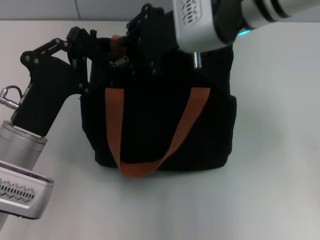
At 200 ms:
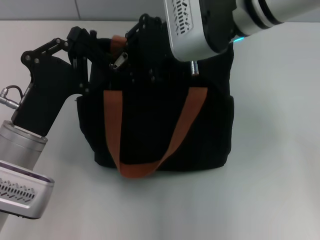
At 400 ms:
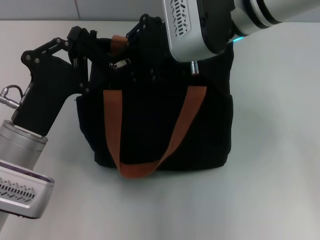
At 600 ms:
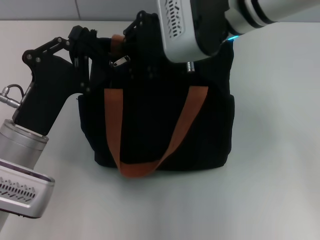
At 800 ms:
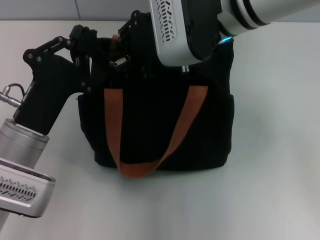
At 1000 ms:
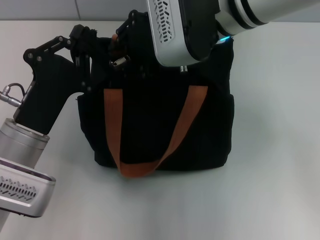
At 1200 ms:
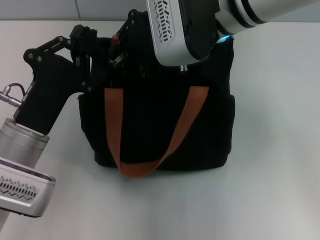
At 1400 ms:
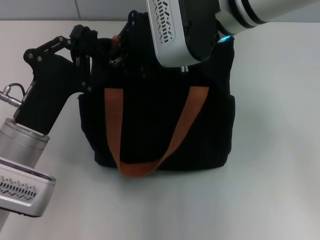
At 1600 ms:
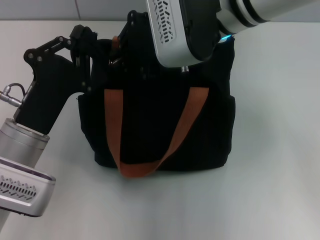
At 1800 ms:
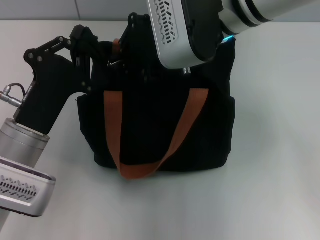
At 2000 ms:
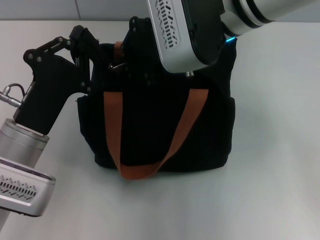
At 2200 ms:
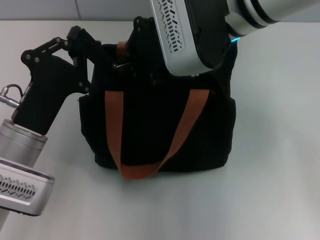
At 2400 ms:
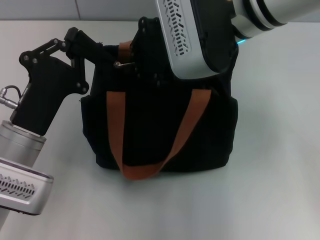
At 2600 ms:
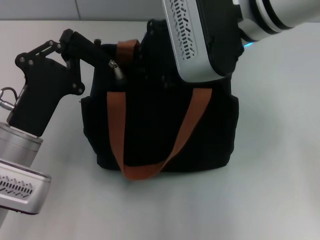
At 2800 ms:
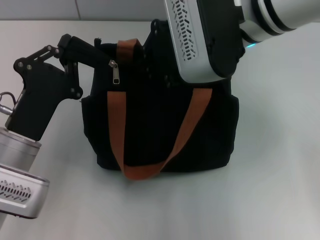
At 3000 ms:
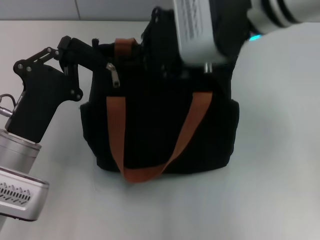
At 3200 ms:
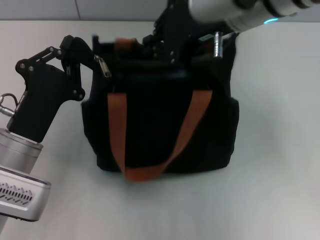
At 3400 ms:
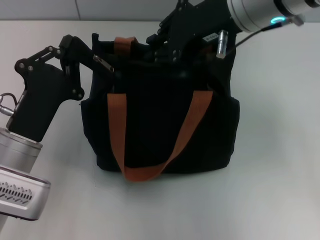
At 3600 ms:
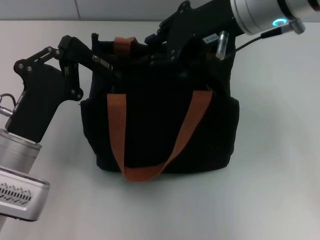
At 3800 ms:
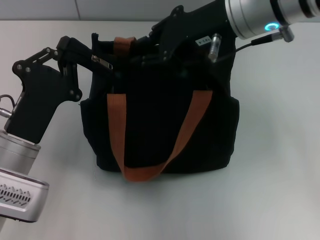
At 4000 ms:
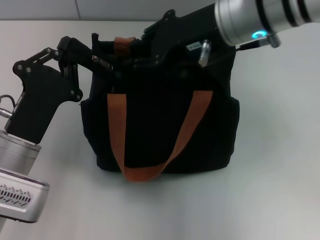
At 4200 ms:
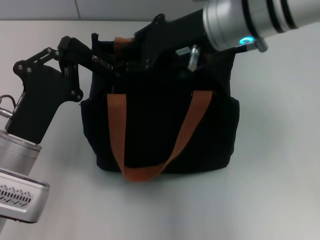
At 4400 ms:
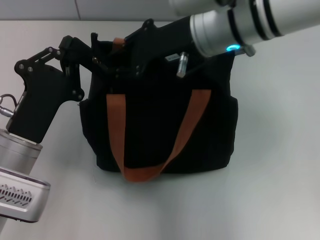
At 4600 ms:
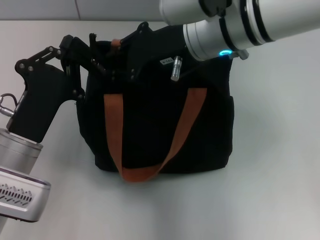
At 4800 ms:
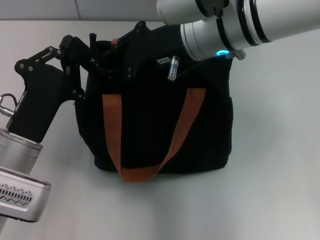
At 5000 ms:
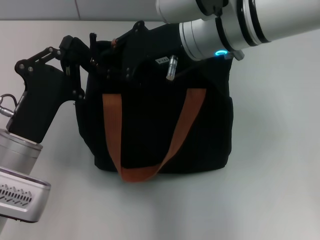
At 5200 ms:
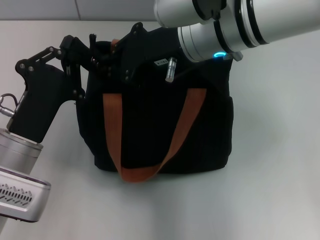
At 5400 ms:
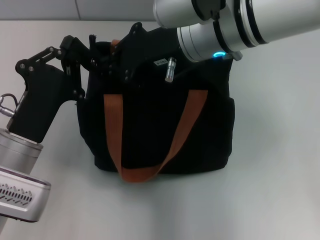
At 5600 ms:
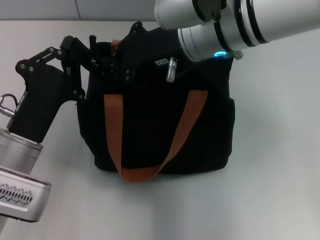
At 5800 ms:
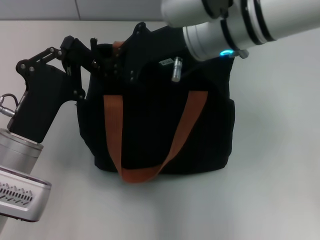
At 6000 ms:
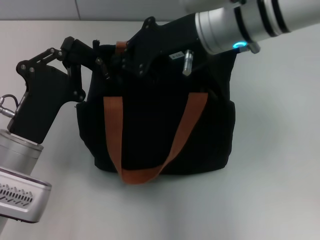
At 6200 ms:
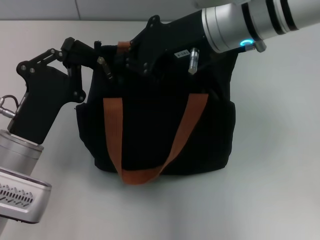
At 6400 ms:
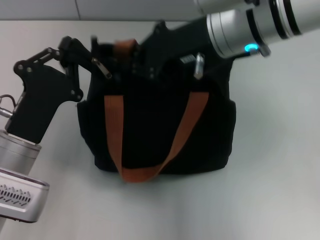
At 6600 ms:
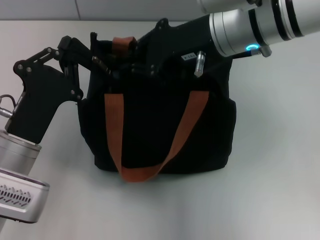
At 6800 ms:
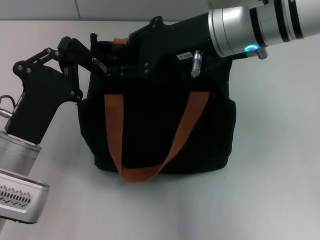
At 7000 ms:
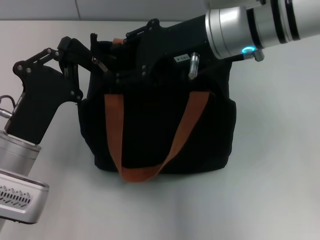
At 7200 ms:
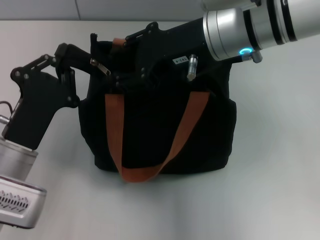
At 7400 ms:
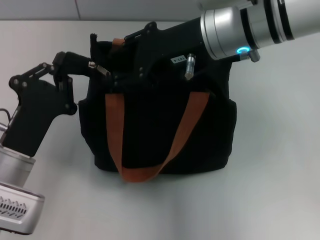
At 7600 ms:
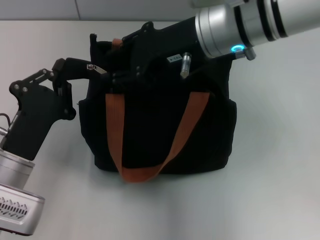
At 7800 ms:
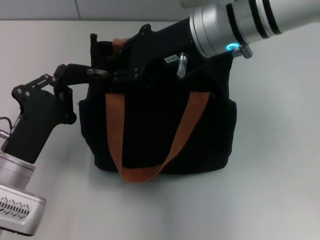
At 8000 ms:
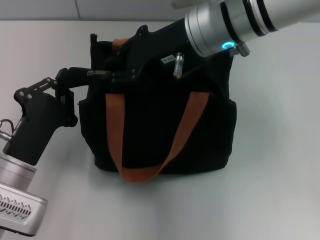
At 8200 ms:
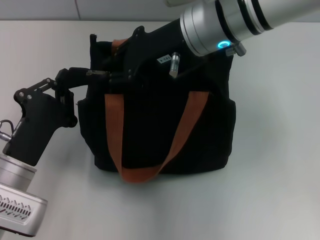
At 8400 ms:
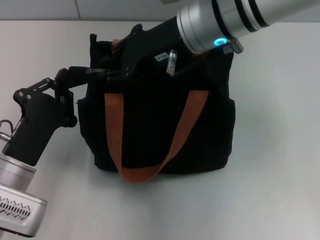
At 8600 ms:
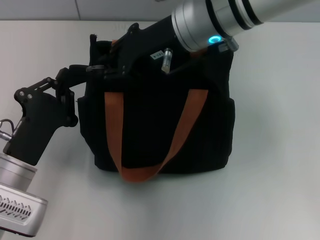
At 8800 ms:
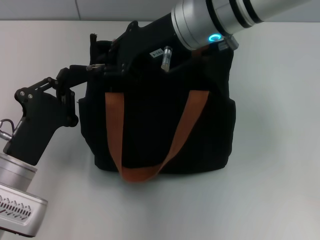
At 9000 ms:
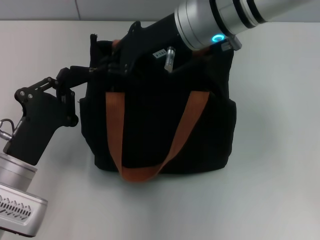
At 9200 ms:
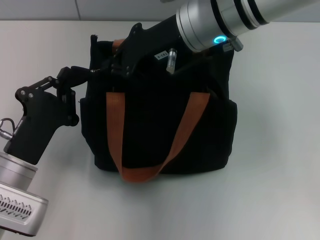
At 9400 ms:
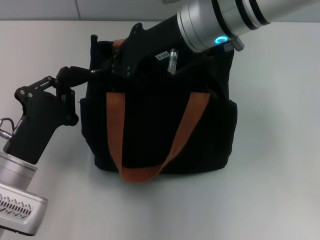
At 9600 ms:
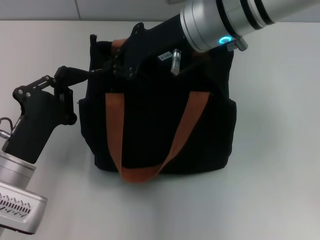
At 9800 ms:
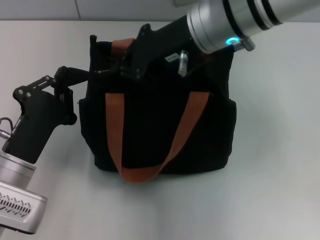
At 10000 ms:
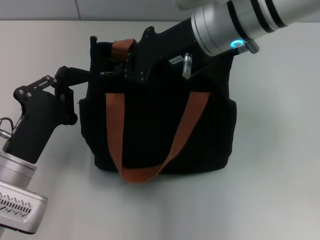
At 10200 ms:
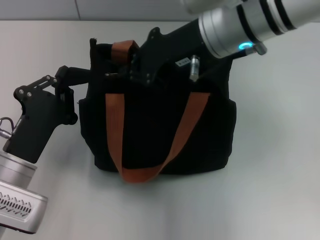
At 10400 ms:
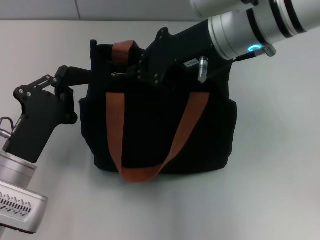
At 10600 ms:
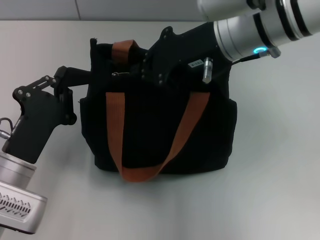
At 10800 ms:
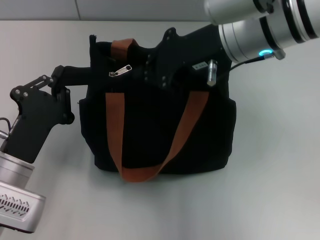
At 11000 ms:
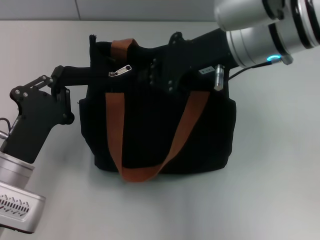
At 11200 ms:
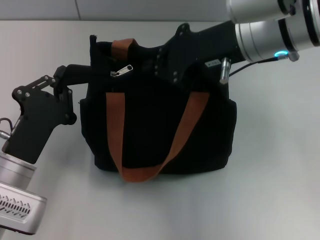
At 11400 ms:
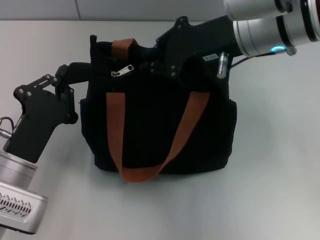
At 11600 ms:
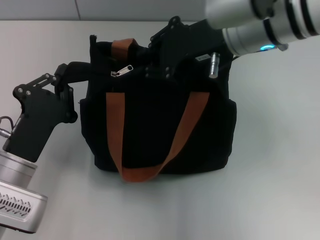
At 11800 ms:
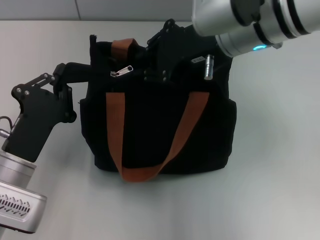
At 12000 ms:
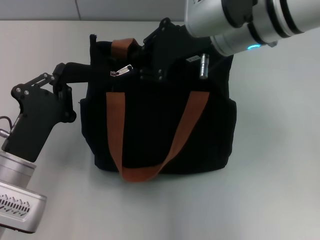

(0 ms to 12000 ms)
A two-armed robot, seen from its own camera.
0 ms - 1600 ms: There are only small adjustments of the grippers.
4400 ms - 6000 ms: Both grippers stay put.
6000 ms - 7600 ms: The right gripper opens up.
7600 ms - 9000 ms: The right gripper closes its fingers.
9000 ms - 10400 ms: The grippers stay close to where they were, moving slightly.
10400 ms - 12000 ms: There are only small adjustments of the grippers.

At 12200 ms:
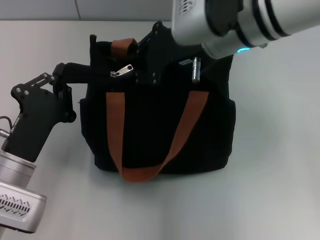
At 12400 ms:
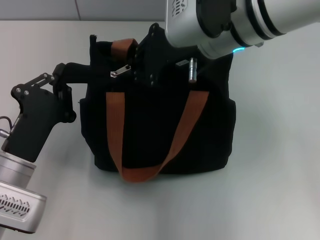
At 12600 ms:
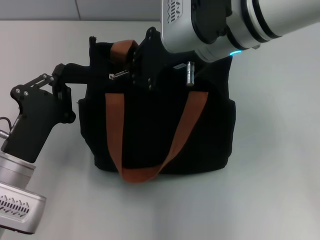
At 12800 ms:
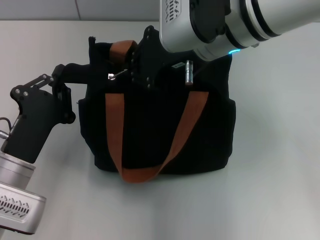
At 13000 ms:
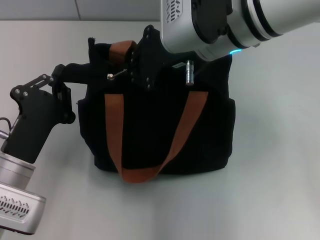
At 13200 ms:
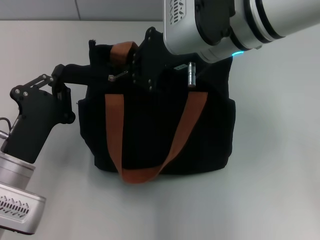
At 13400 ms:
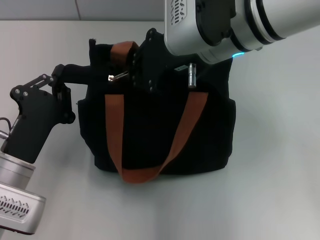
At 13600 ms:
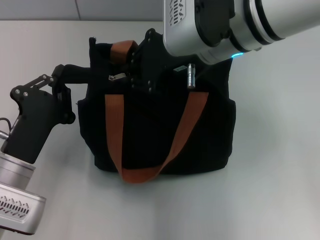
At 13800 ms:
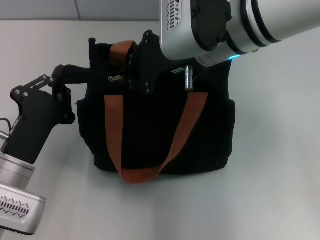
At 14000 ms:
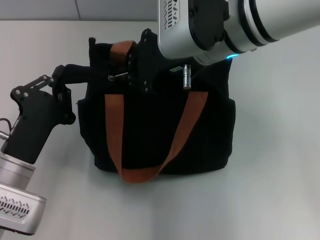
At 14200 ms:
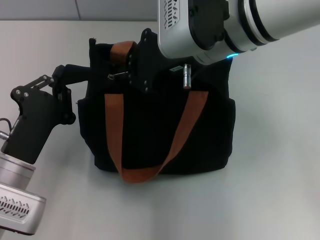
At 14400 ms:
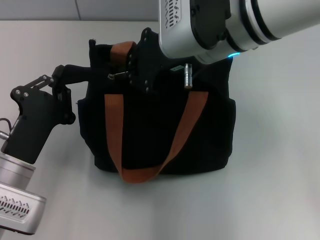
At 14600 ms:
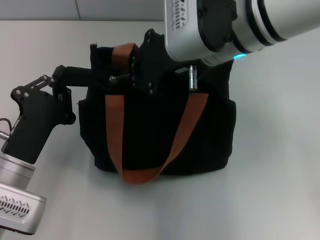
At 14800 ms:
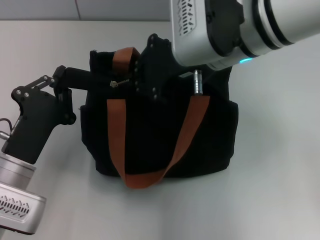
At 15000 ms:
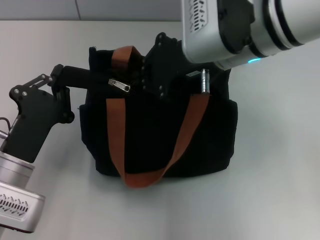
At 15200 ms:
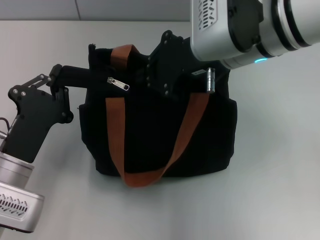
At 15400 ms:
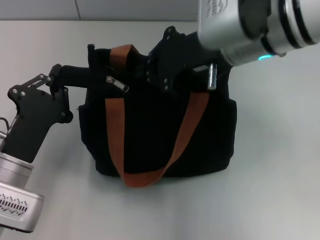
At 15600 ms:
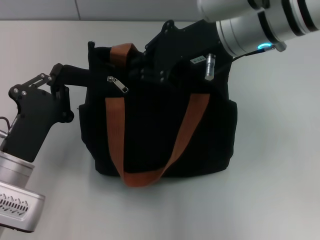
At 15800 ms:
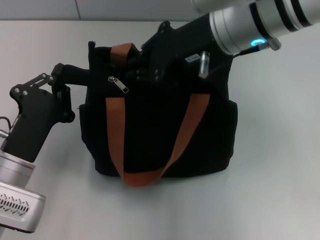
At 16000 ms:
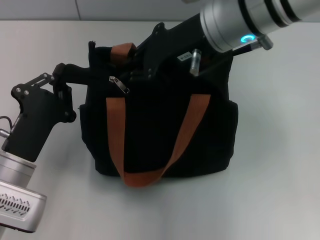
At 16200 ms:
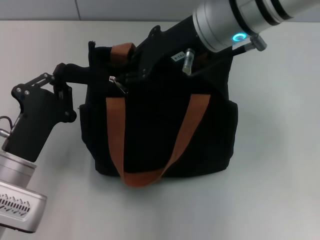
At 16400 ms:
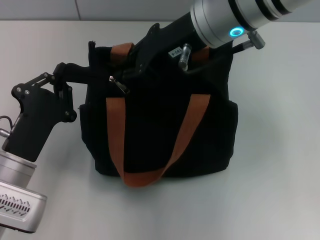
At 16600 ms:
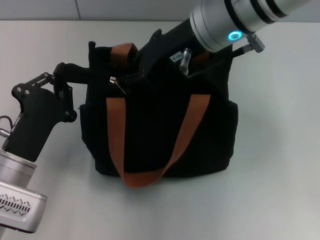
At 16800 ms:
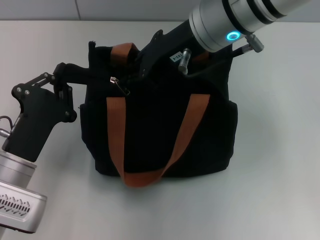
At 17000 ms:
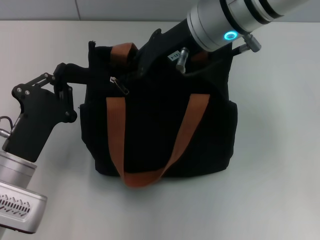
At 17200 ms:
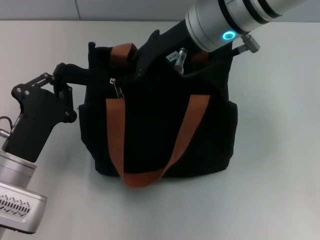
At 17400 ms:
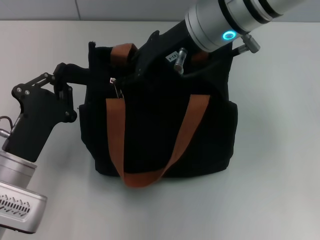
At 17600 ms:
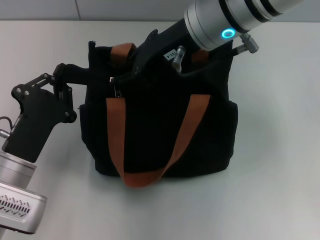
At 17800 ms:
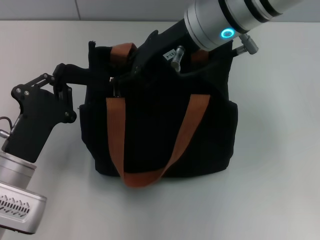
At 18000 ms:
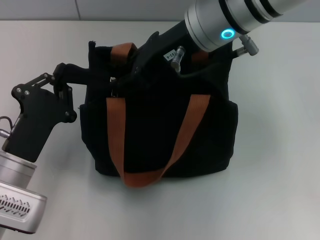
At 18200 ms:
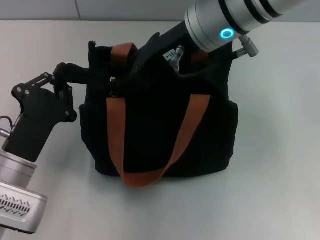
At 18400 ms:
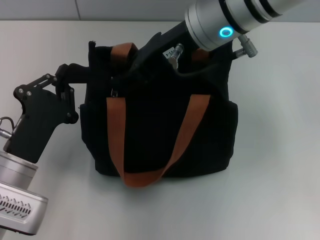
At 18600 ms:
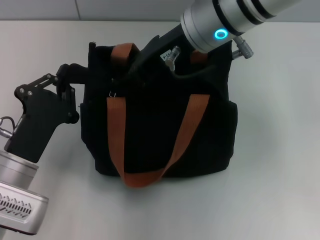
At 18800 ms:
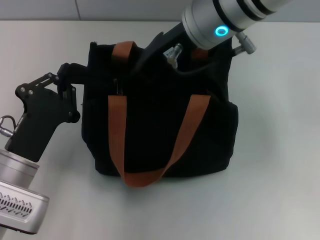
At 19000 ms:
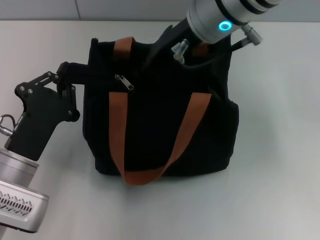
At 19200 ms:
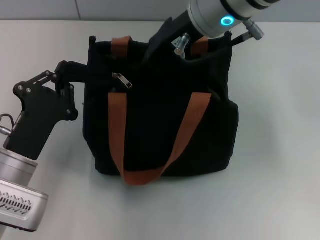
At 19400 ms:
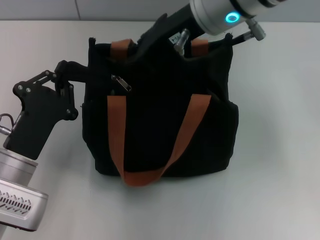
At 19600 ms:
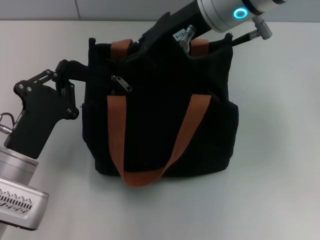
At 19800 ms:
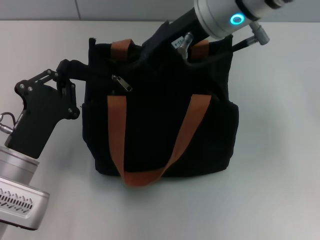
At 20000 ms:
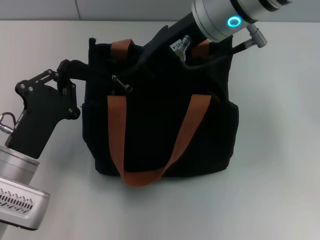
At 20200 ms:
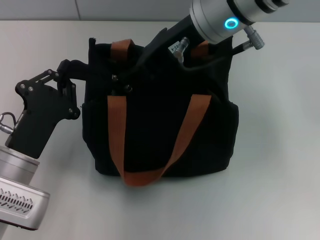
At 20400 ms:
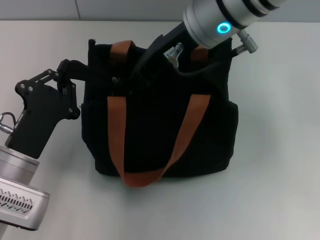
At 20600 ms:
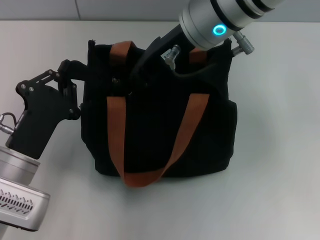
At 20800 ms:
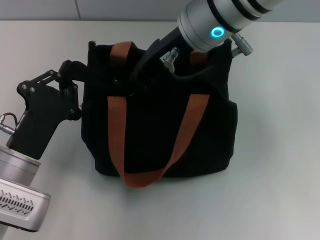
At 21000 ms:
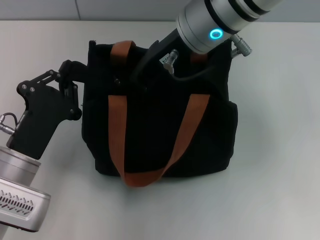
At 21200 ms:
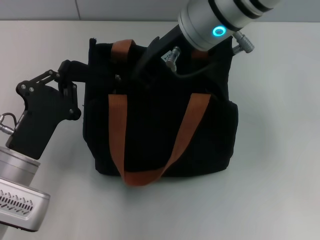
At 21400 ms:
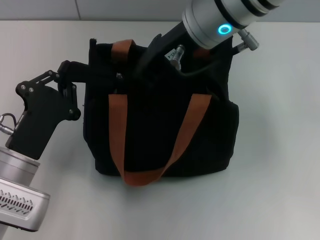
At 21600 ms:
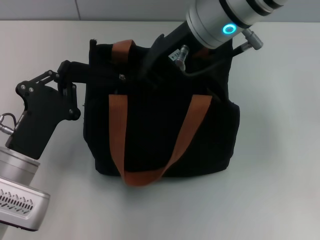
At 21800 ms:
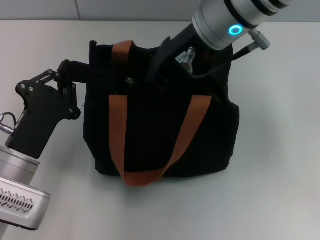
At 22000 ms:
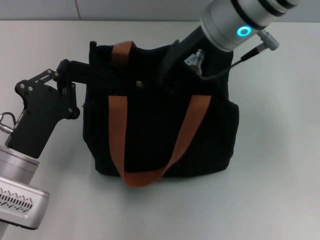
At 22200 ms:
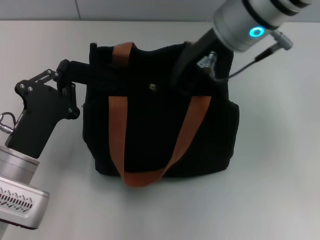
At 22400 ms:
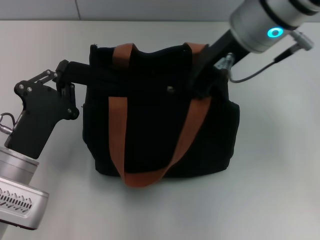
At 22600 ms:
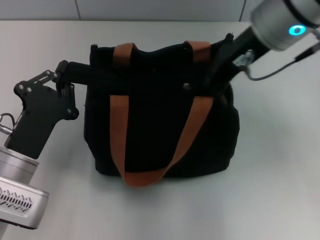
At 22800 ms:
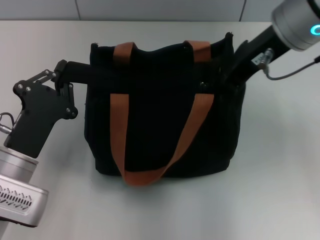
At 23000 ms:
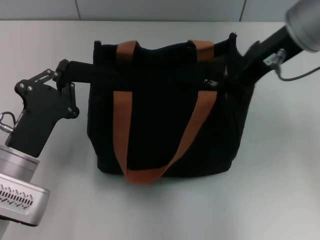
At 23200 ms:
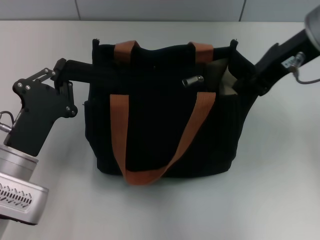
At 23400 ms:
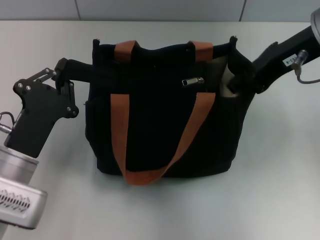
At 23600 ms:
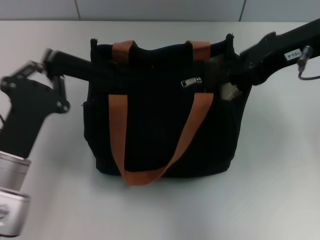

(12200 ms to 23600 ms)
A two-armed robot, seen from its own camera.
Step, 12200 ms - 23000 ms: Pull up the zipper with your right hand.
12200 ms - 13600 ms: Neither gripper changes place.
13600 ms - 15000 ms: The grippers make only small movements.
16400 ms - 20800 ms: The grippers make only small movements.
20800 ms - 22200 ms: The right gripper closes up.
22200 ms - 23600 ms: The right gripper heads to the right, covering about 10 cm.
